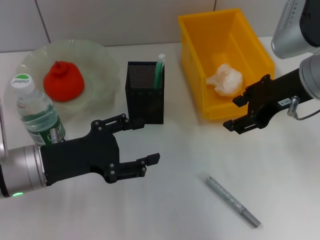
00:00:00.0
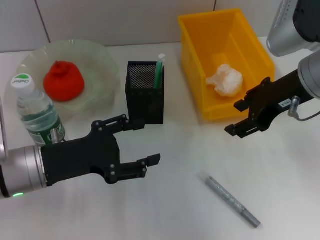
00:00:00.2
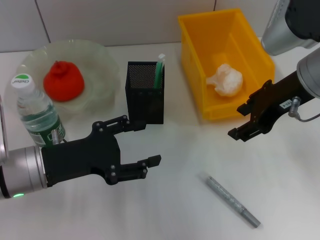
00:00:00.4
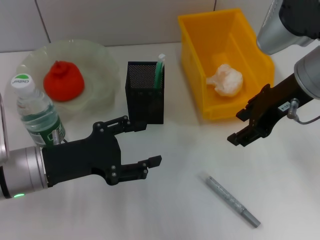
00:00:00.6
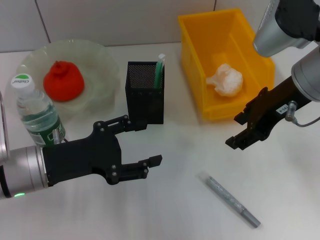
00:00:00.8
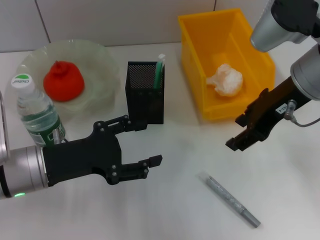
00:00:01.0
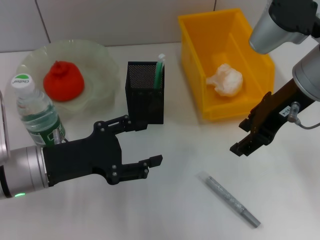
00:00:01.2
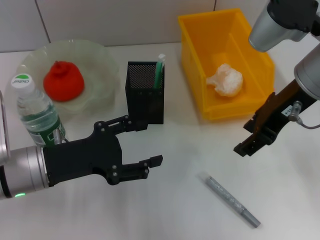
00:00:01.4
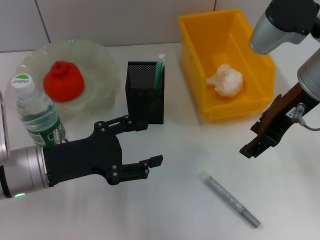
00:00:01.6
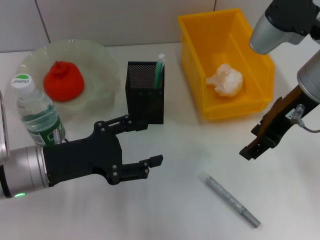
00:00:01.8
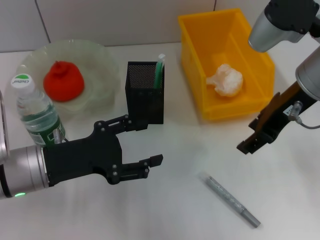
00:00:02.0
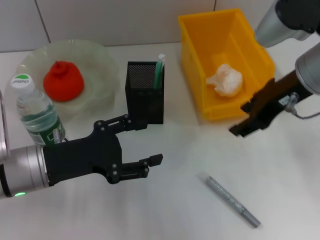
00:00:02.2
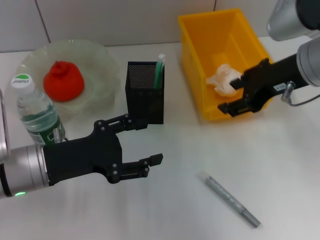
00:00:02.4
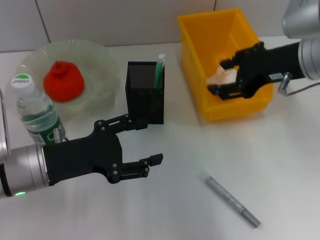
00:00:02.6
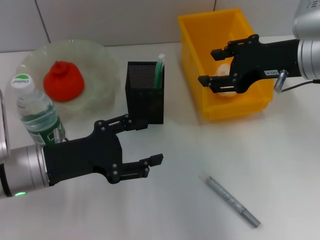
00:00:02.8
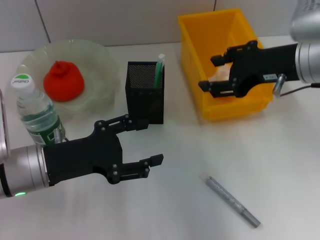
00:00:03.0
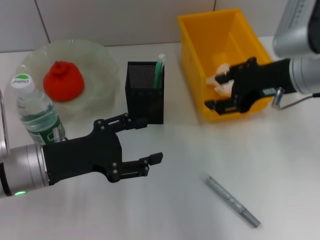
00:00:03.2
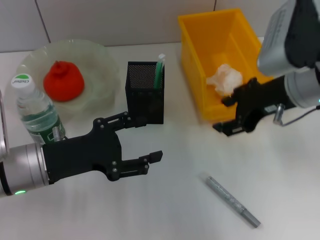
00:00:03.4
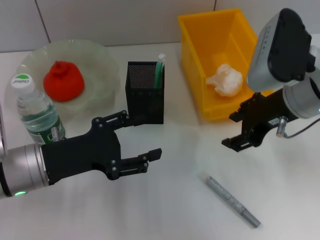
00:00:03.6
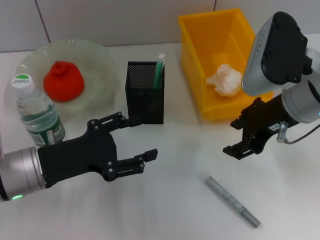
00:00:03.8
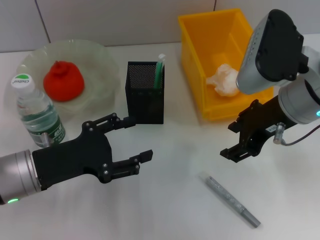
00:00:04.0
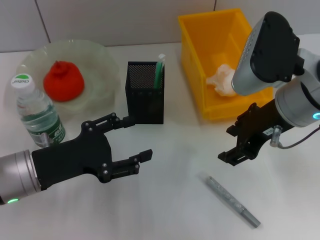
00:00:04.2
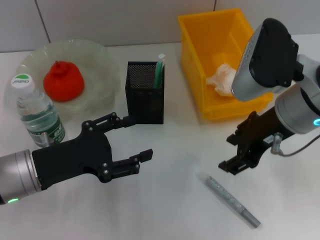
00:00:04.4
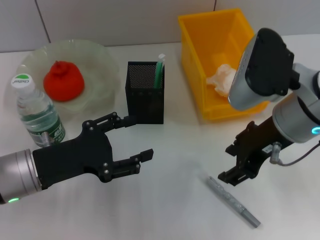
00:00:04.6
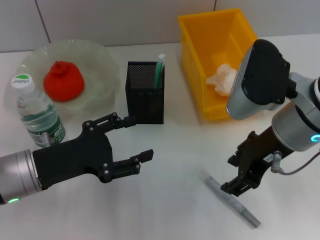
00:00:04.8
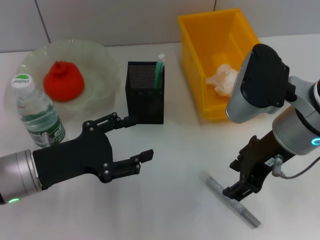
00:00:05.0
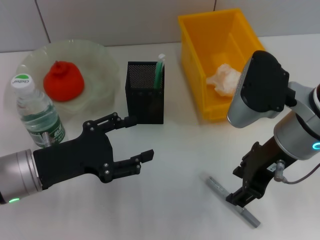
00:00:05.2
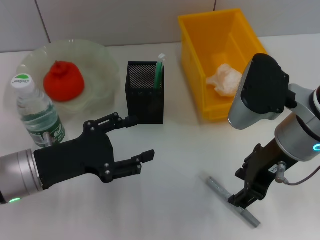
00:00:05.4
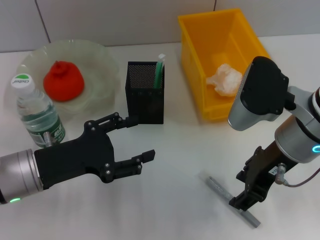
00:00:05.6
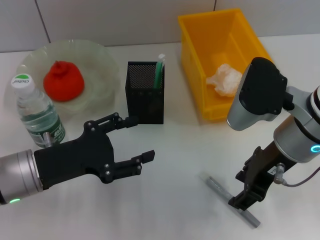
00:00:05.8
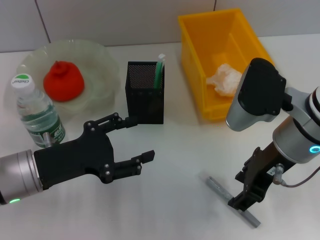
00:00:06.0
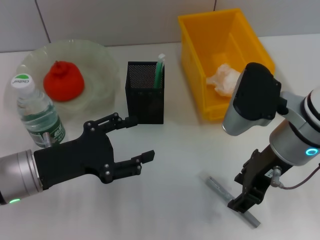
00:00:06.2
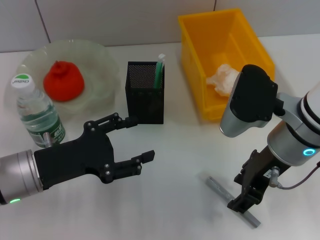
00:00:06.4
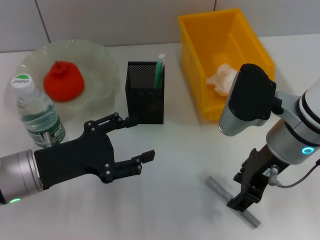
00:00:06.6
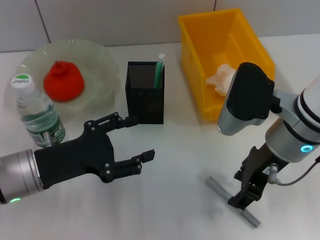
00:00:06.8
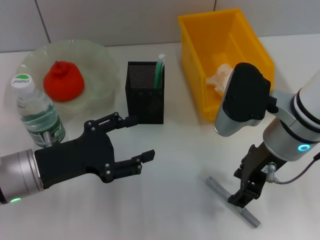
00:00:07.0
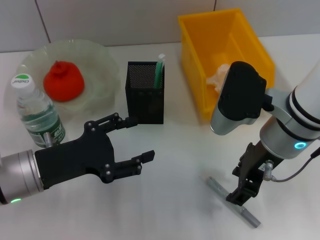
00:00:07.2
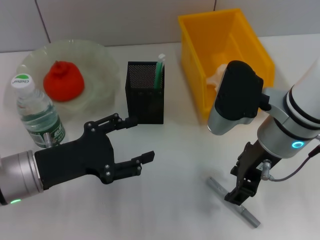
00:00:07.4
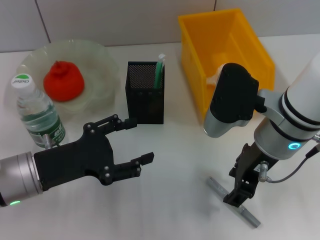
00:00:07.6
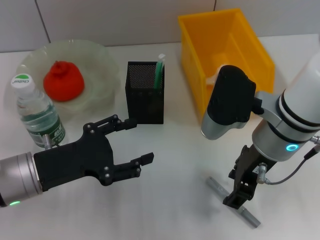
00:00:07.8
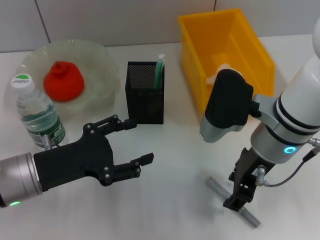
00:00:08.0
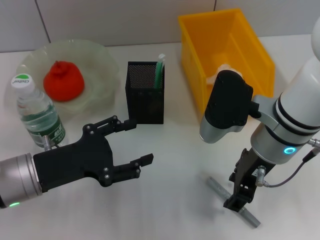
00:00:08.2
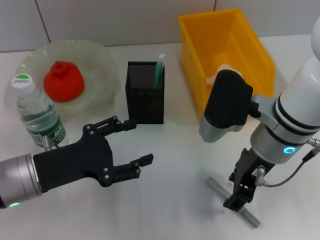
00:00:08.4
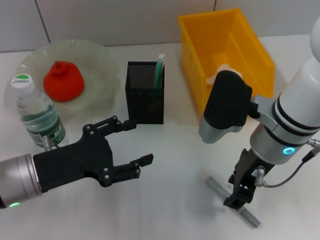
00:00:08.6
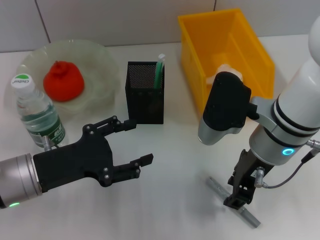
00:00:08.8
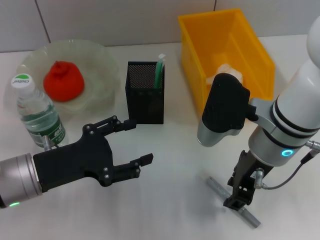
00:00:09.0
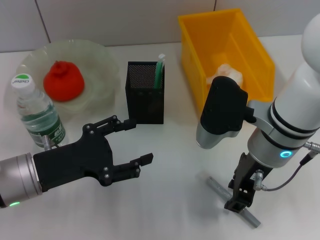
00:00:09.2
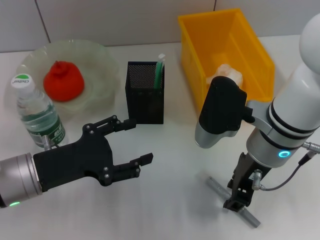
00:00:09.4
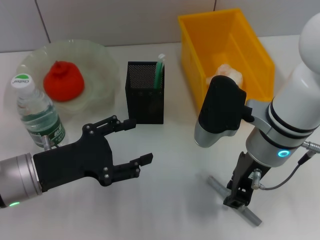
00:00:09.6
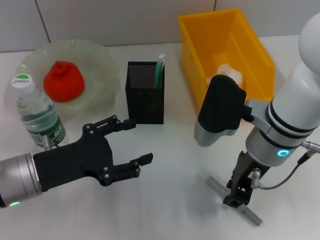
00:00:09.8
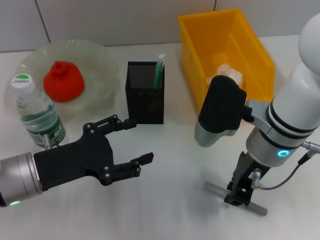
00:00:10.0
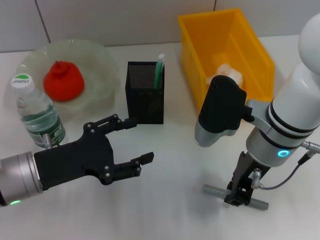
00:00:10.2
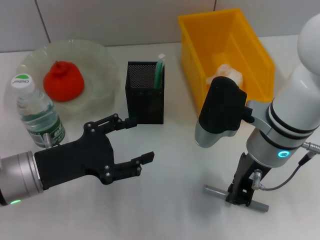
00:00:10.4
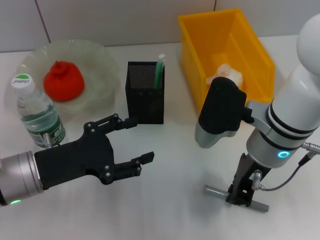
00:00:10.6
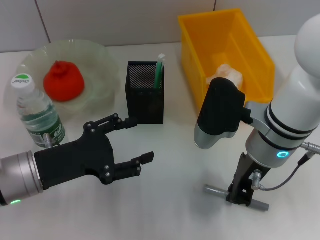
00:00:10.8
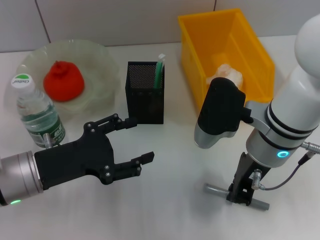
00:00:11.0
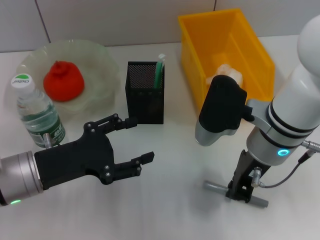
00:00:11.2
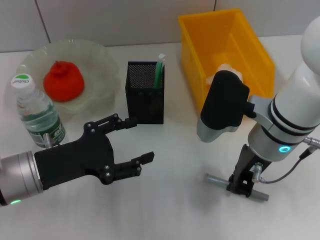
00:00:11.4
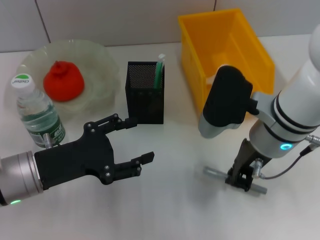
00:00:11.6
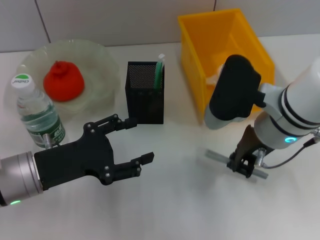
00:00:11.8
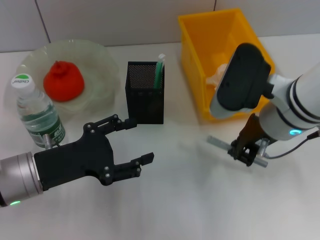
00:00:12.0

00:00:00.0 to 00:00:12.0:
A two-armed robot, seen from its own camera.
Step, 00:00:00.0 to 00:00:11.0: Grab the gray glue with the right hand.
00:00:00.0 to 00:00:01.6: The grippers move only a little.
00:00:03.0 to 00:00:04.4: The right gripper shifts by some 5 cm.
00:00:04.4 to 00:00:07.6: There are only small adjustments of the grippers.
00:00:07.6 to 00:00:09.0: Neither gripper changes place.
00:00:09.0 to 00:00:10.4: Neither gripper changes place.
00:00:10.4 to 00:00:12.0: The grippers stay close to where they were, moving slightly.

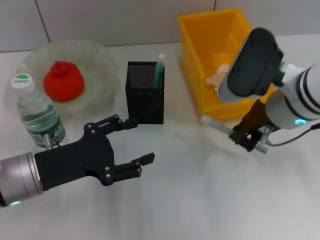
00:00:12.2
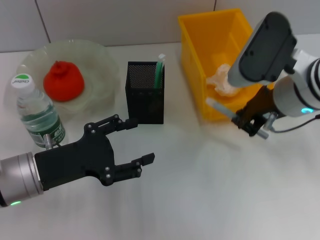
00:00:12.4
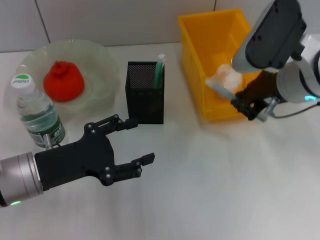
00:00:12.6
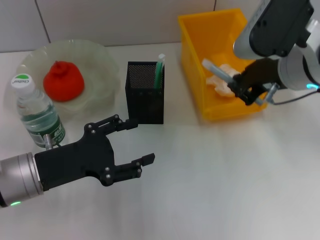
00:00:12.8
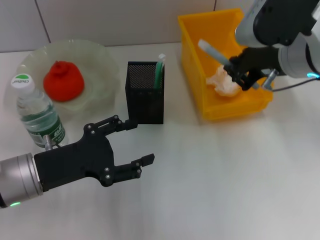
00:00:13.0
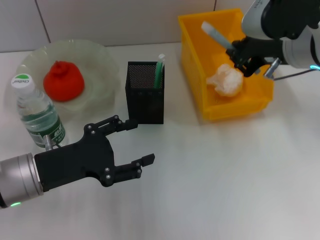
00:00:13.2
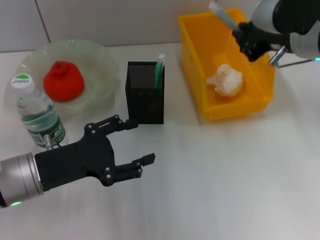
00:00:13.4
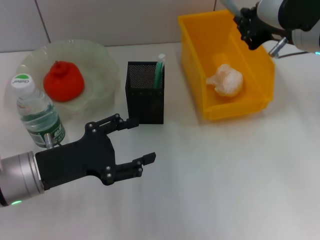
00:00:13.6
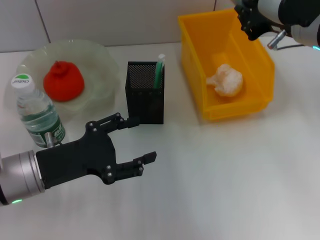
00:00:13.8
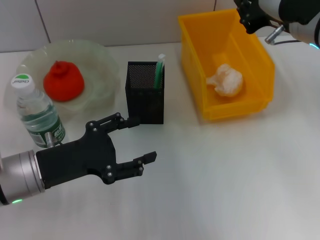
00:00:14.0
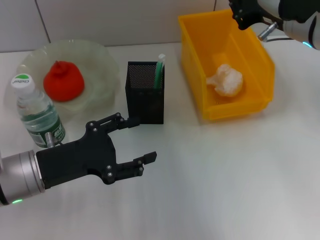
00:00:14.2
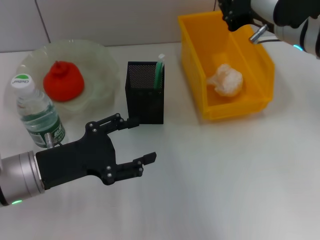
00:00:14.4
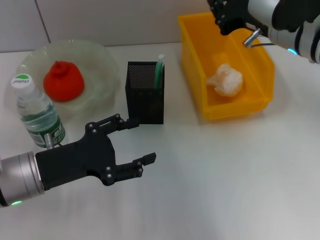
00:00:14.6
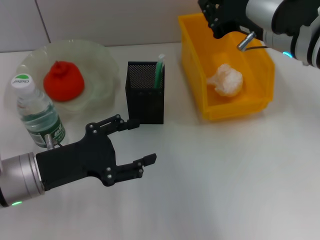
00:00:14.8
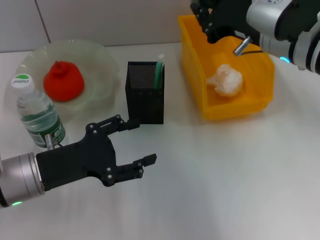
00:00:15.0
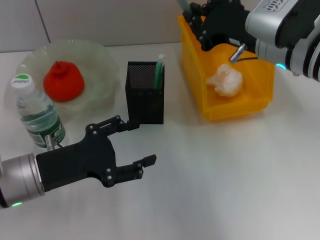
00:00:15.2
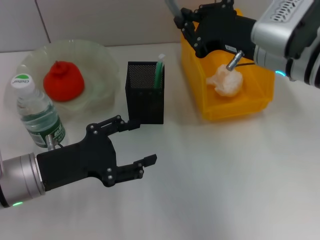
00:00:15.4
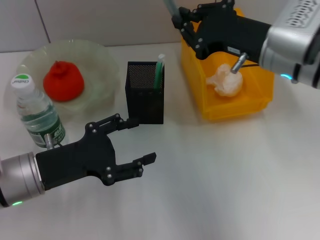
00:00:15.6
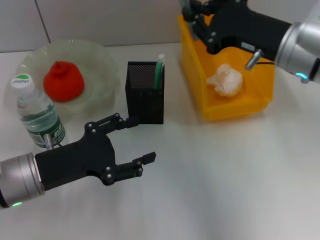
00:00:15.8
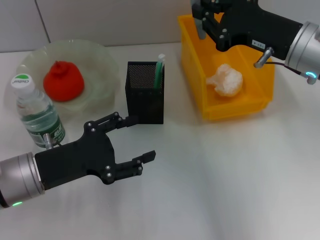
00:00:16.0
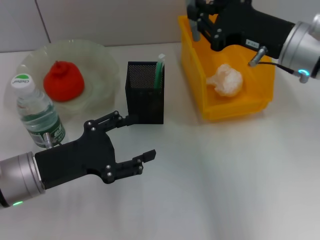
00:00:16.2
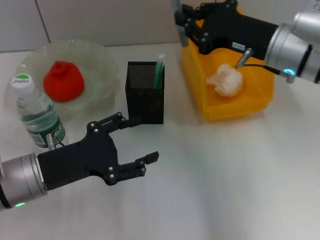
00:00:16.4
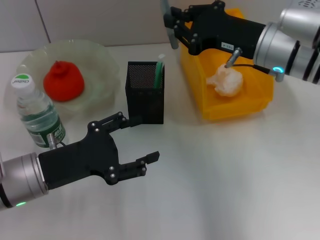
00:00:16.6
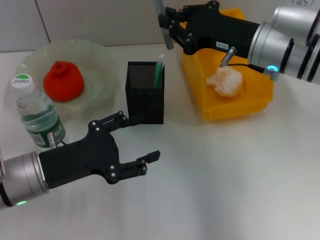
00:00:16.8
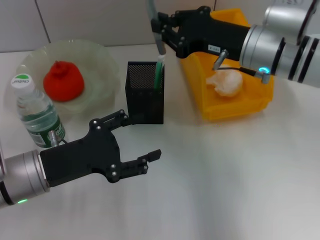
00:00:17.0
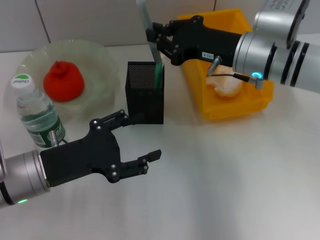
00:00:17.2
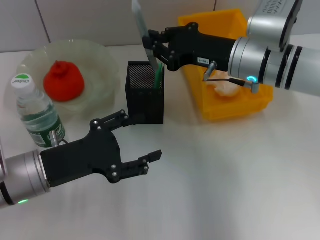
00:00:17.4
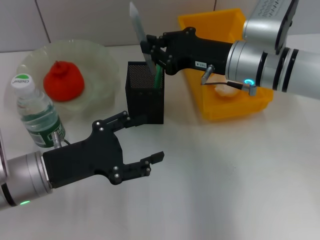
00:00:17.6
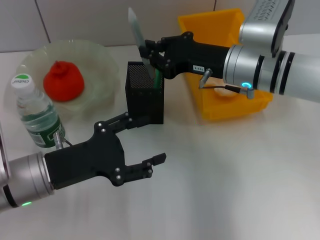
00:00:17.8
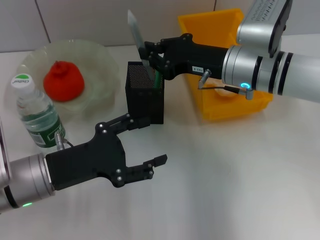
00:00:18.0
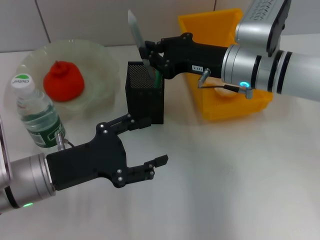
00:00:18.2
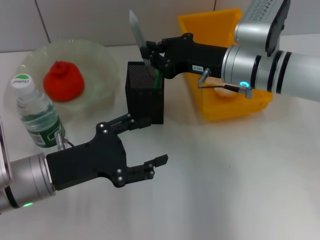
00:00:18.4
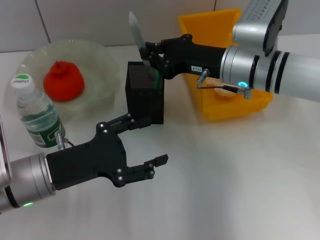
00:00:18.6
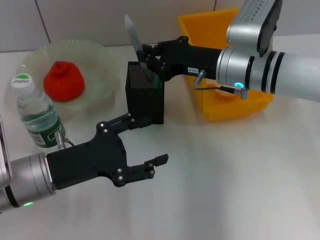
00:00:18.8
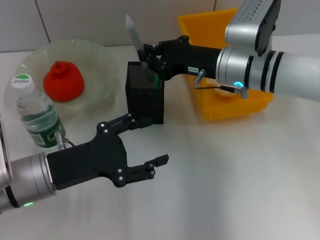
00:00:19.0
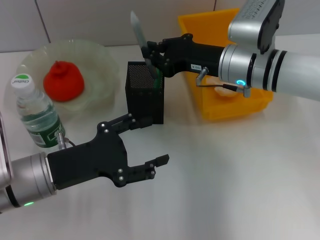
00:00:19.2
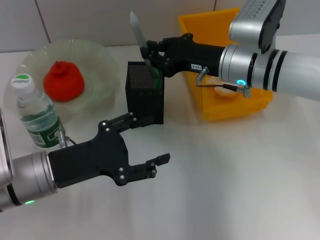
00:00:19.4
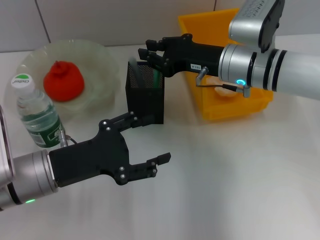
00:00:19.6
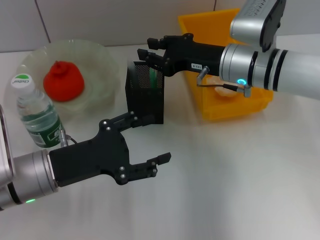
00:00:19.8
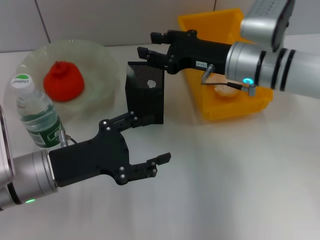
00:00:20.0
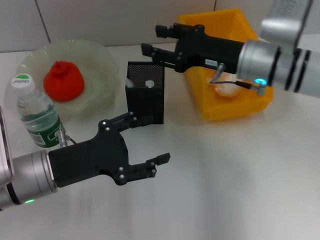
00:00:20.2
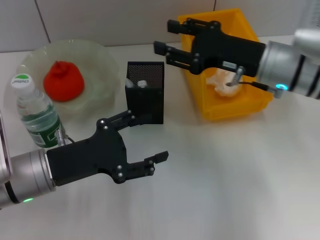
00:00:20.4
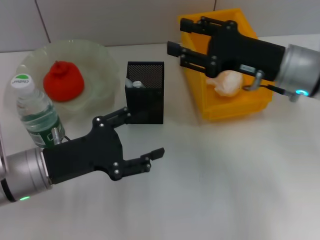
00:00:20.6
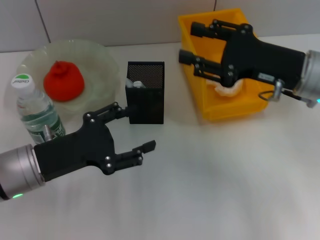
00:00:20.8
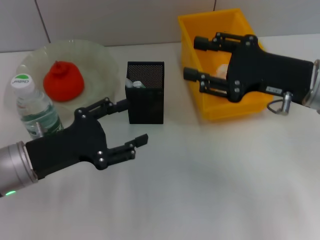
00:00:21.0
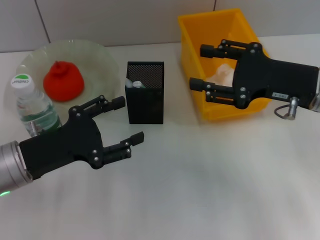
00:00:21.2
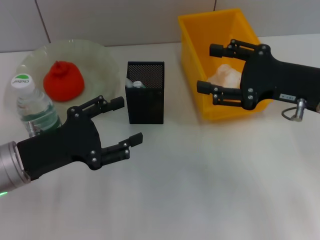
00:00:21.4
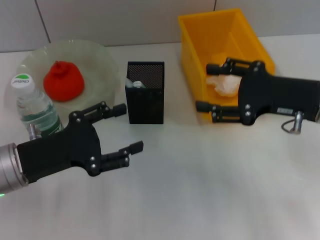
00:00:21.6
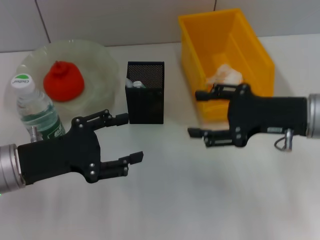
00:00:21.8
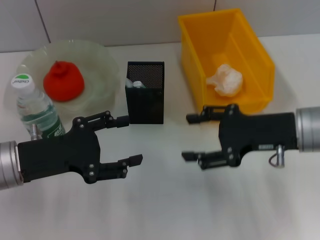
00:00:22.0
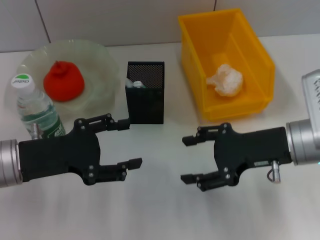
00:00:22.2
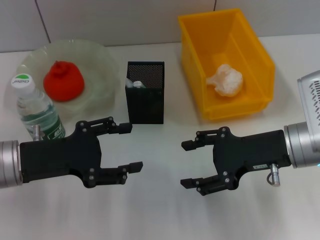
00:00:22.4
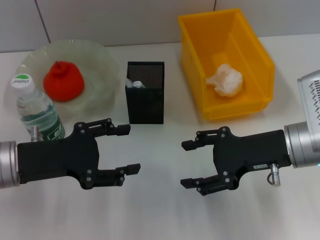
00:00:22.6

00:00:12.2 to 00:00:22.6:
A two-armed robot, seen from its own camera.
Step, 00:00:12.2 to 00:00:20.0: Place the gray glue into the pen holder with the right hand.
00:00:12.2 to 00:00:13.6: The right gripper travels upward by about 5 cm.
00:00:16.6 to 00:00:18.2: The right gripper moves roughly 5 cm.
00:00:18.2 to 00:00:19.6: Both grippers stay put.
00:00:19.6 to 00:00:21.2: The right gripper is displaced to the right and backward by roughly 15 cm, and opens up.
00:00:21.2 to 00:00:22.6: The right gripper moves some 5 cm.
